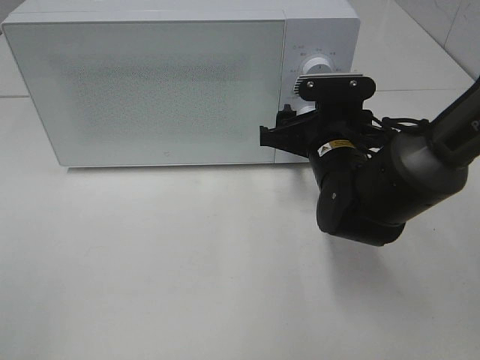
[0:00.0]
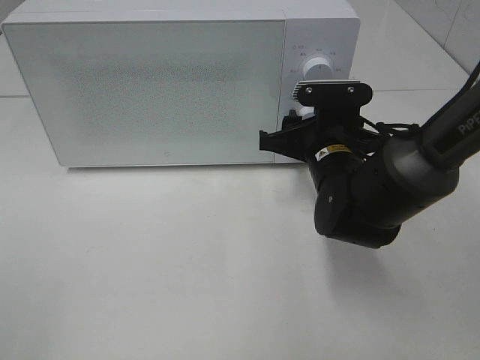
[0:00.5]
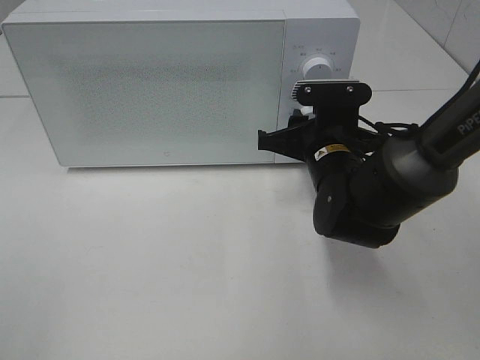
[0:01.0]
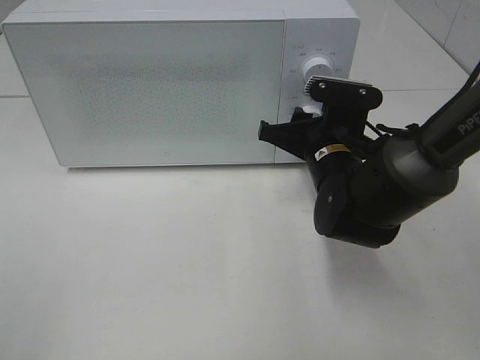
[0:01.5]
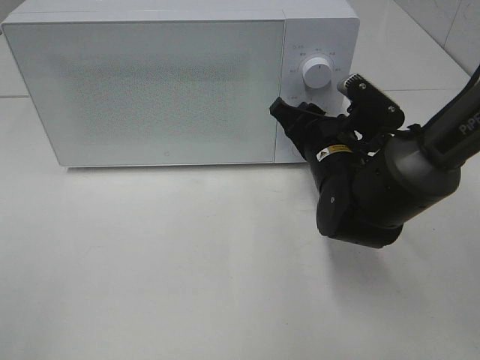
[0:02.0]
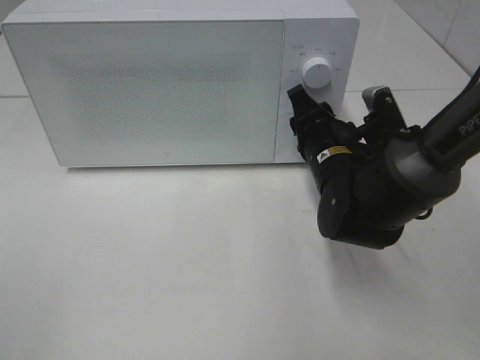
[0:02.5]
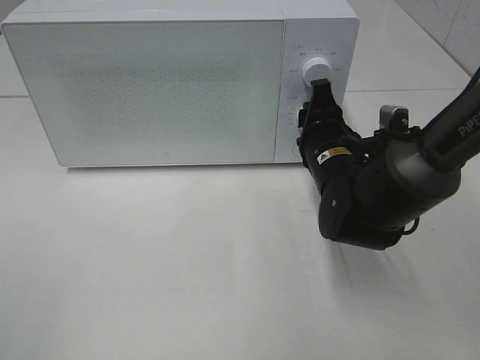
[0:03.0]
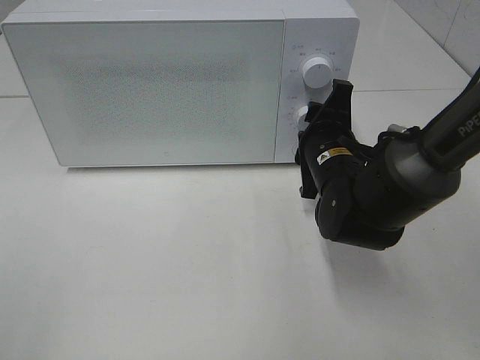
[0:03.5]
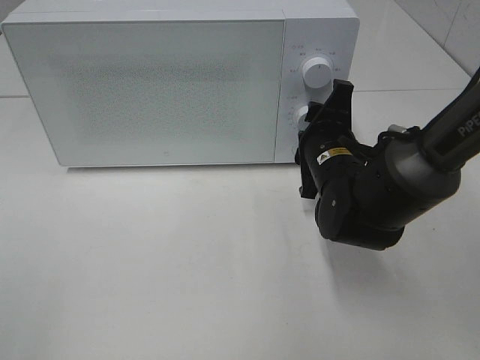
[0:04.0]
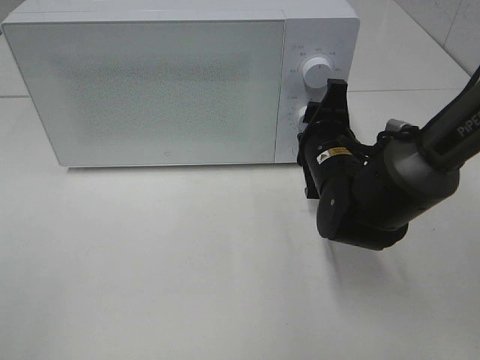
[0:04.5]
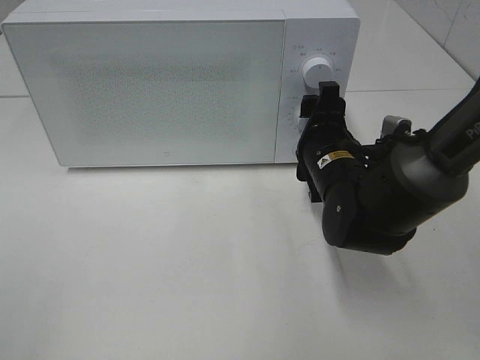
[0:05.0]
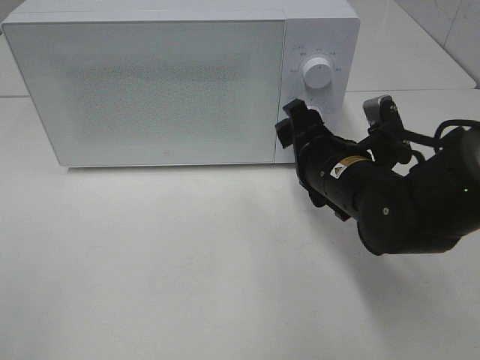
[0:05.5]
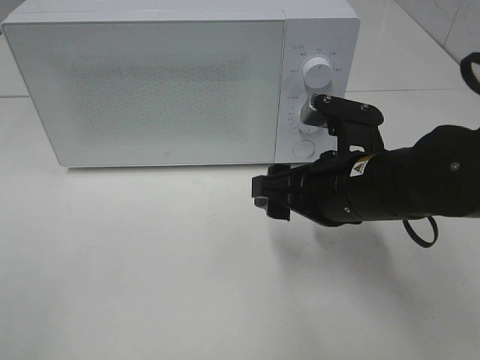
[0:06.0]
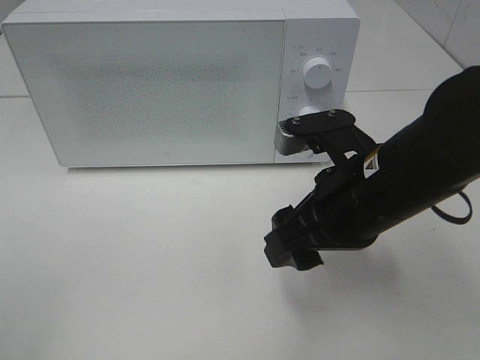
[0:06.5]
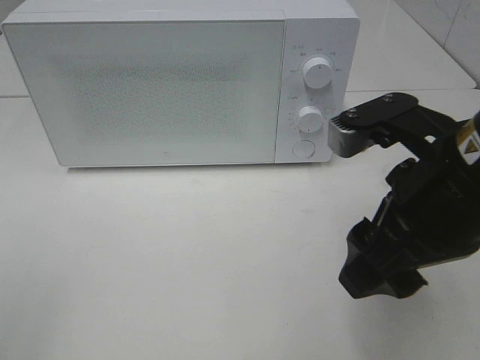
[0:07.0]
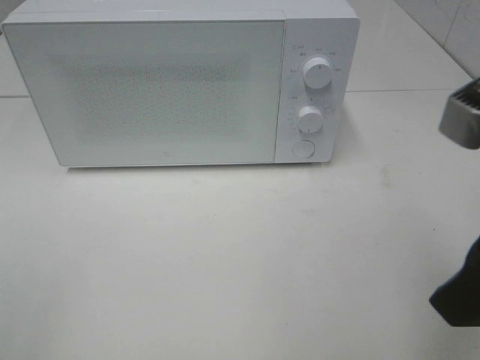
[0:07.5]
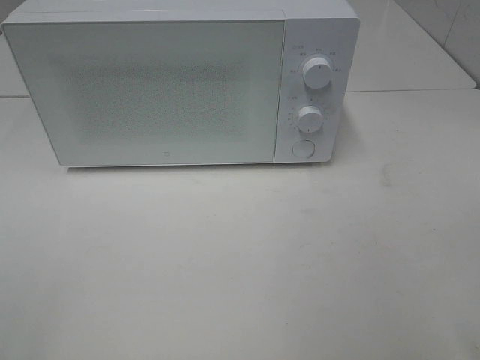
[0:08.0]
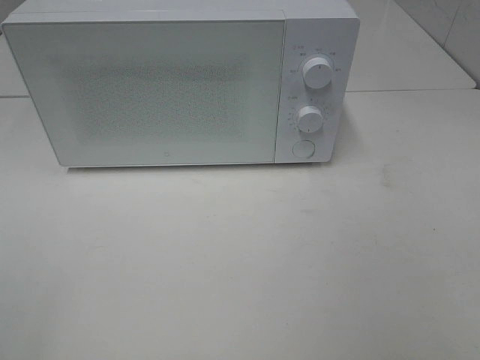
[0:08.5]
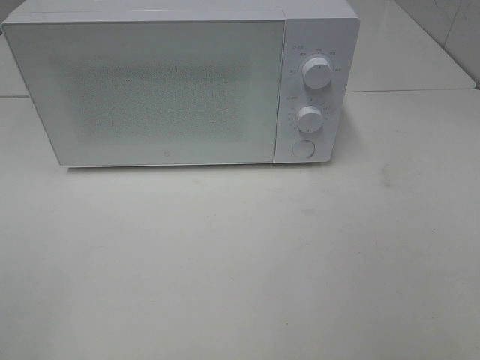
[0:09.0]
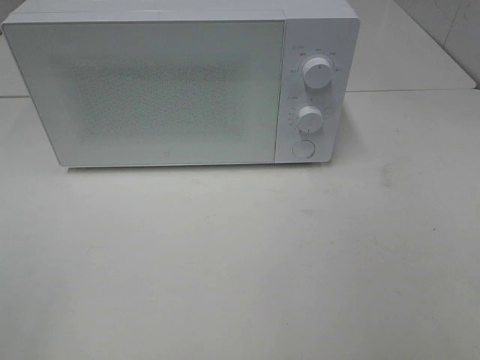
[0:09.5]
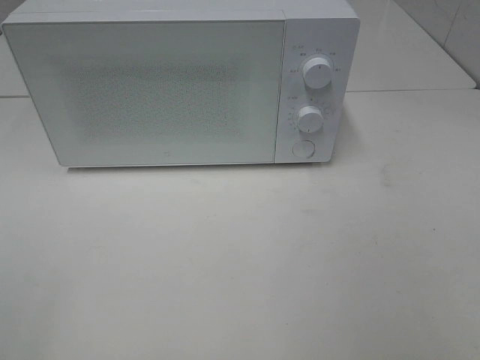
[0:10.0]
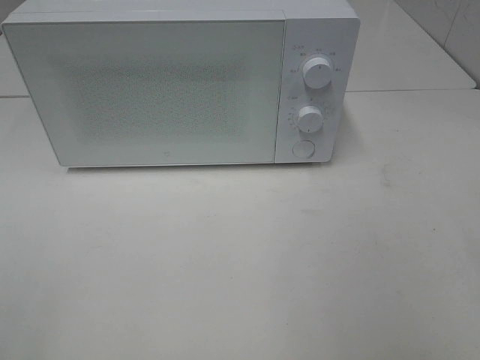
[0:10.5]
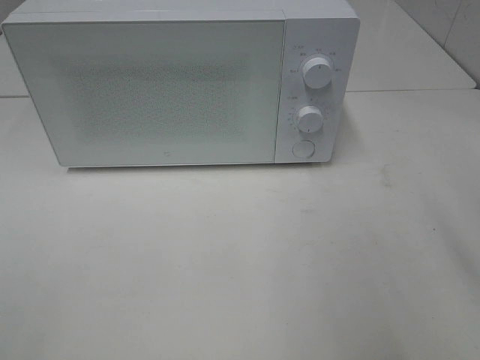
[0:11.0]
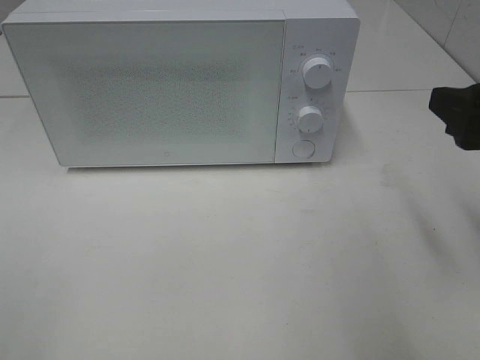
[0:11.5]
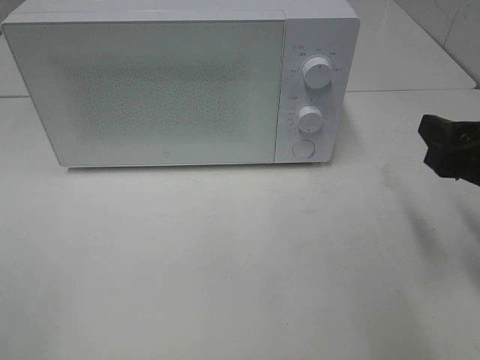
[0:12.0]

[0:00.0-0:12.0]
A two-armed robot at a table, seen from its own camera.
Task of the whole recording: Heat the burger.
Step, 0:00.0 to 0:04.5: Right hand: twist timer button.
0:04.0 to 0:06.0: The right gripper goes about 10 cm backward.
0:06.0 to 0:08.0: The right gripper travels backward, upward and to the right by about 25 cm.
0:10.0 to 0:12.0: The right gripper heads forward and downward, covering roughly 20 cm.

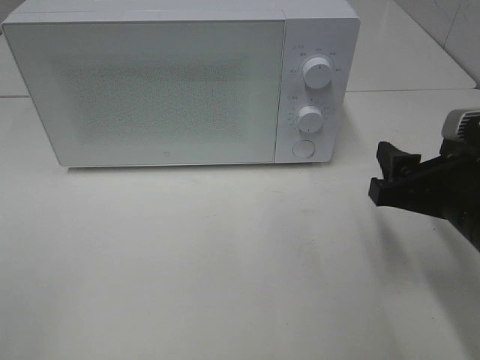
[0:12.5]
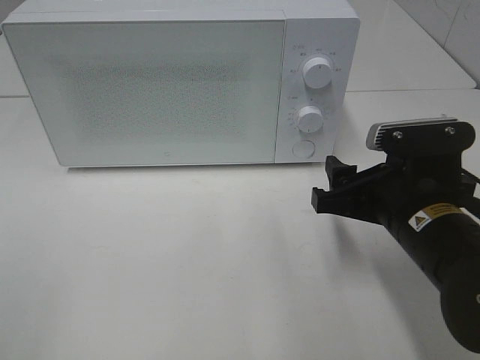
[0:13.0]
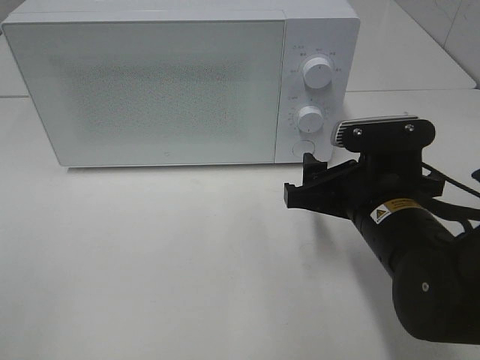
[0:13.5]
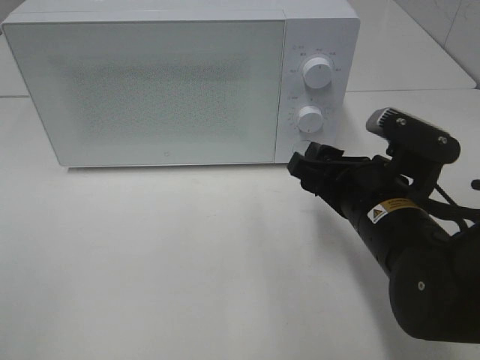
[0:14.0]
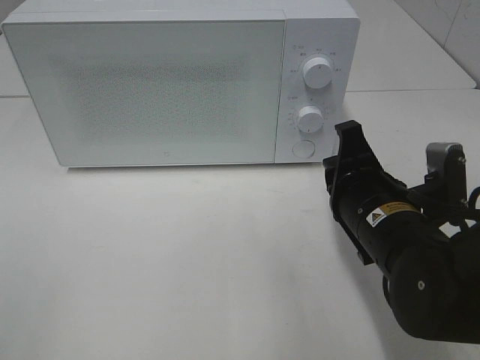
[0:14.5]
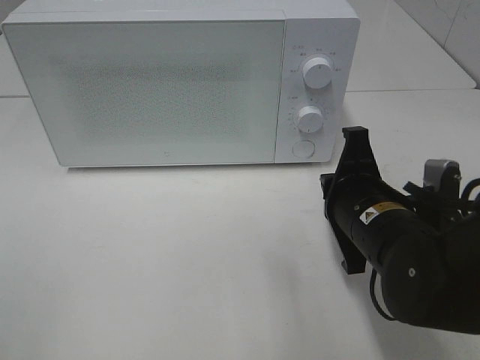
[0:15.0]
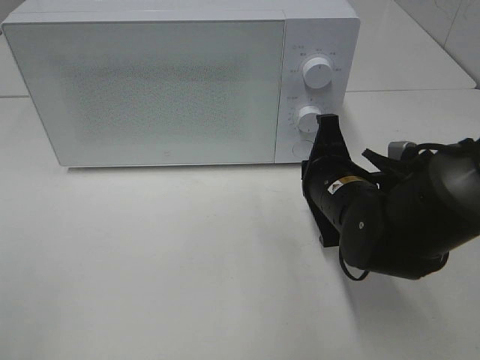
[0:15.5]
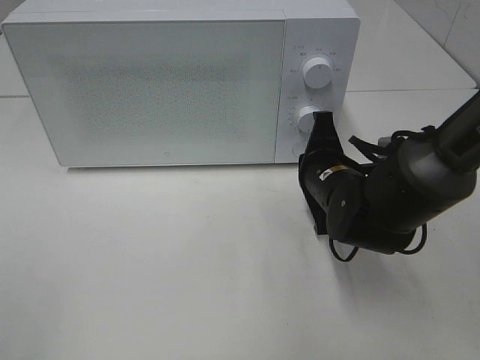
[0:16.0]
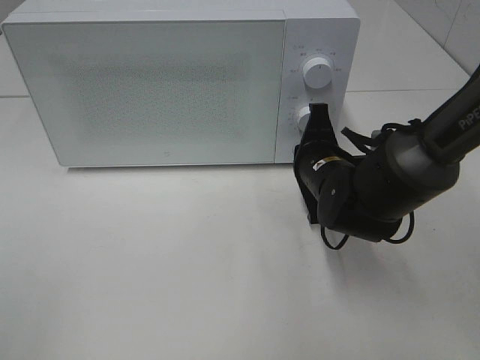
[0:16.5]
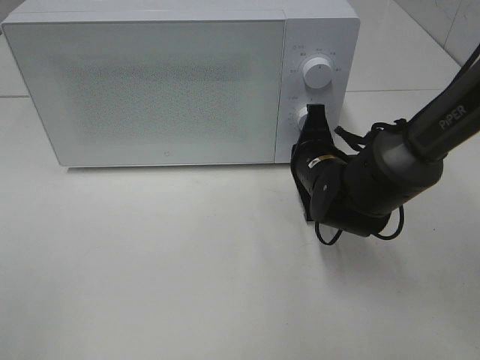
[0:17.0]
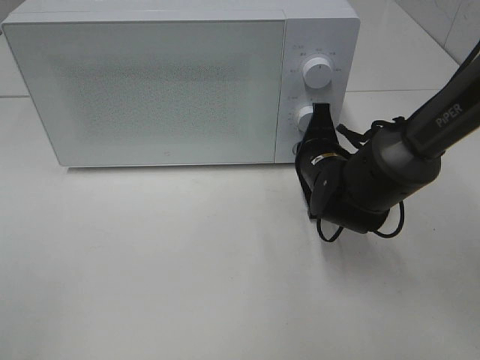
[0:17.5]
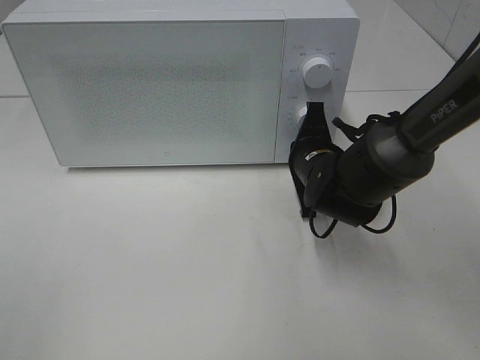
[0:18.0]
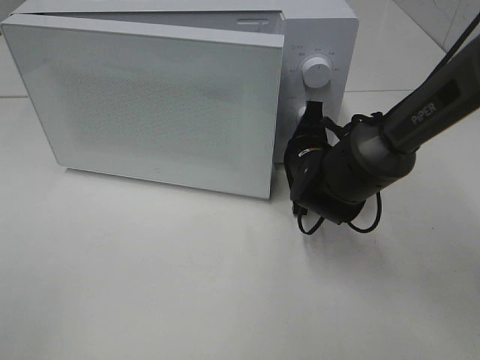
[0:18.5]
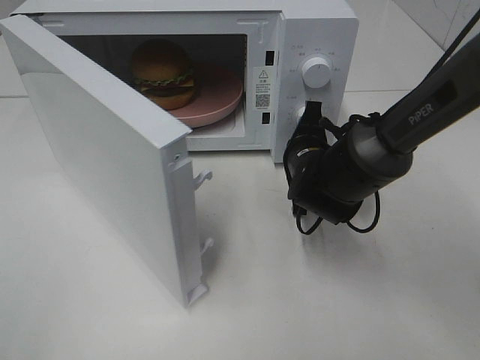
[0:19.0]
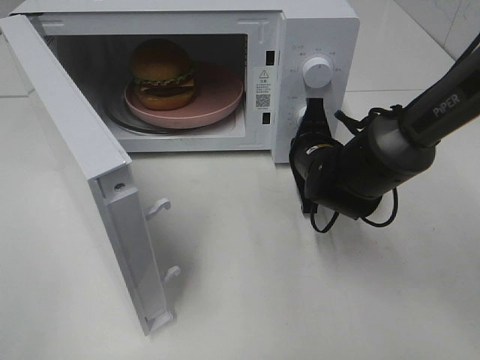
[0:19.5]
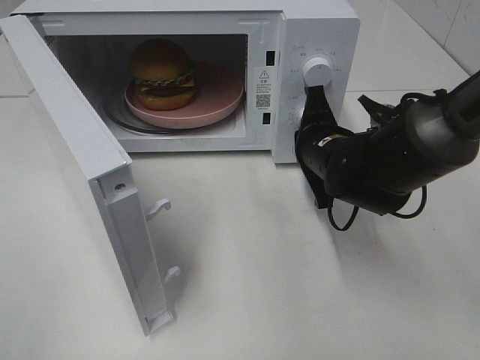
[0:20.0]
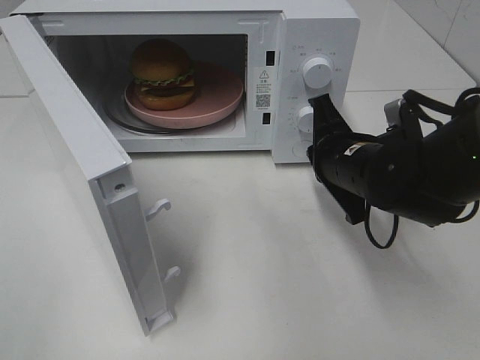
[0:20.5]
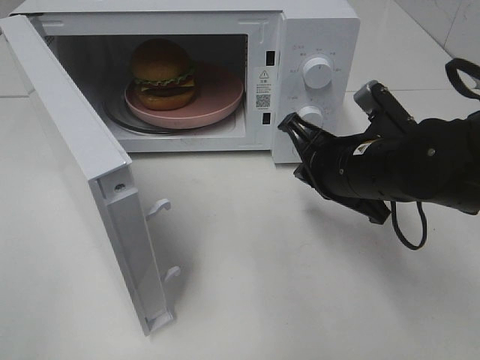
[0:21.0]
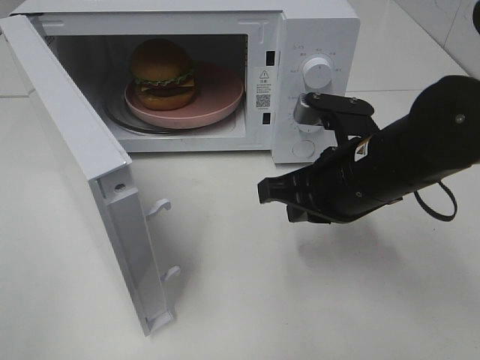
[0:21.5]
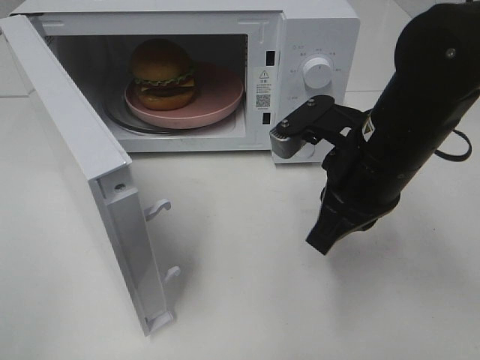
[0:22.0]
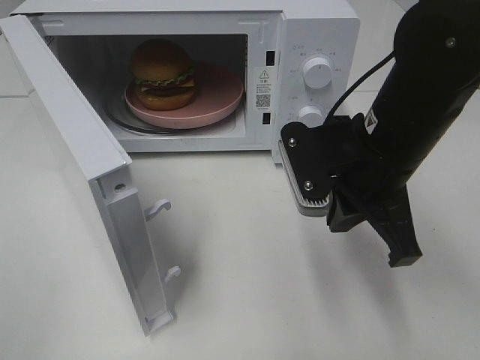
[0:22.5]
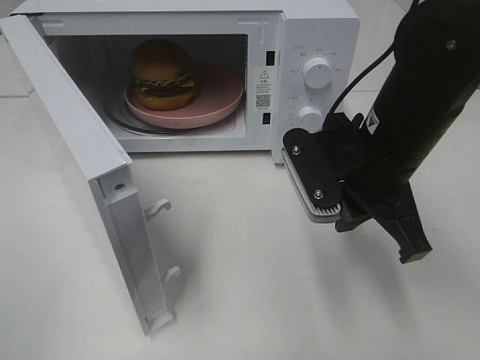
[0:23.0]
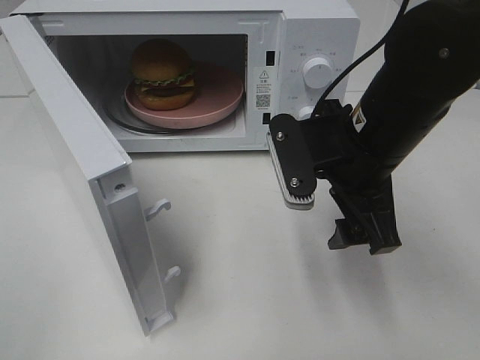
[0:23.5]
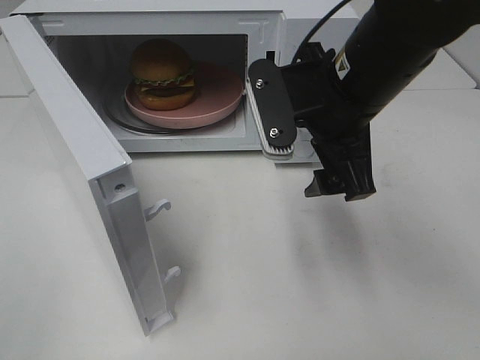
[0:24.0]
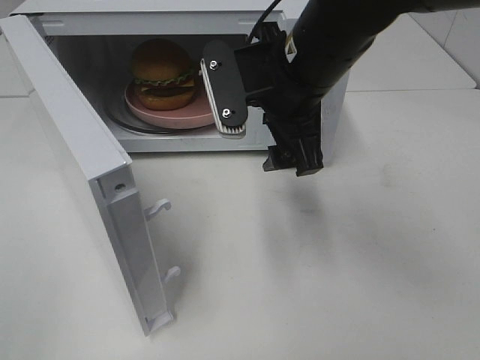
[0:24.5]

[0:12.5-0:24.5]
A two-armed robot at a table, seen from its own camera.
Task of the whole recording: Heat the burger.
Step, 0:12.5 to 0:20.0: Right hand: press the switch.
0:12.5 to 0:14.5: The right gripper is displaced to the left by some 10 cm, and closes up.
0:14.5 to 0:16.5: The right gripper shifts some 10 cm forward.
0:16.5 to 0:18.5: The grippers stay close to where they were, moving slightly.
0:18.5 to 0:20.5: The right gripper travels backward and upward by about 10 cm.
0:20.5 to 0:22.5: The right gripper travels upward by some 5 cm.
0:22.5 to 0:24.5: The right gripper is displaced to the left by about 5 cm, and opens.

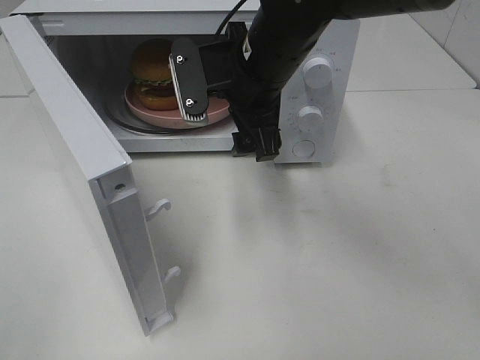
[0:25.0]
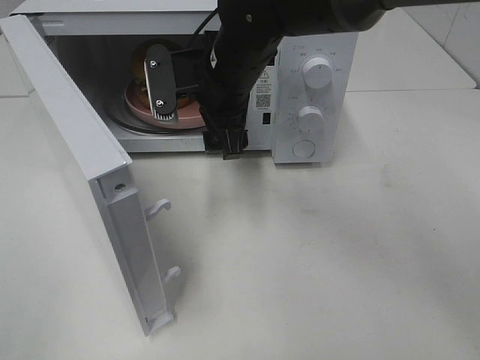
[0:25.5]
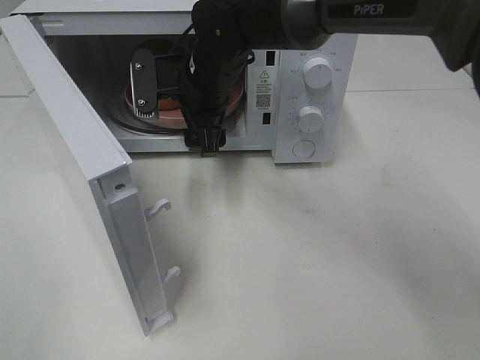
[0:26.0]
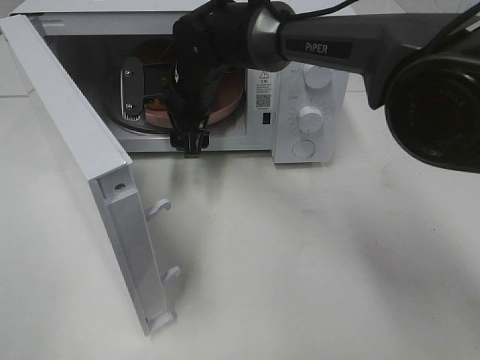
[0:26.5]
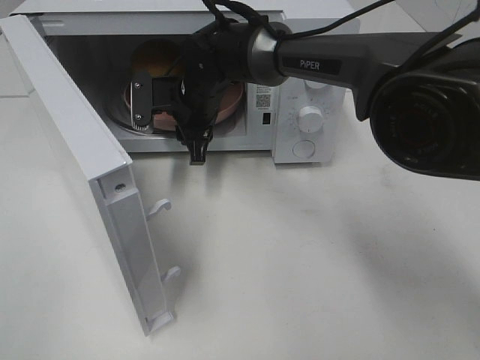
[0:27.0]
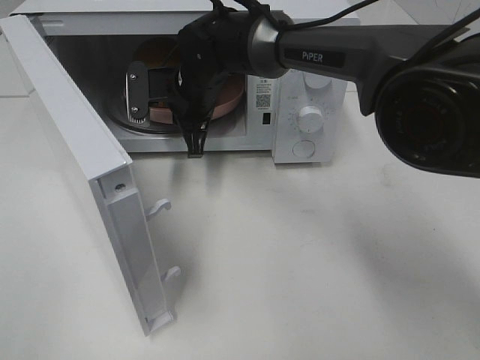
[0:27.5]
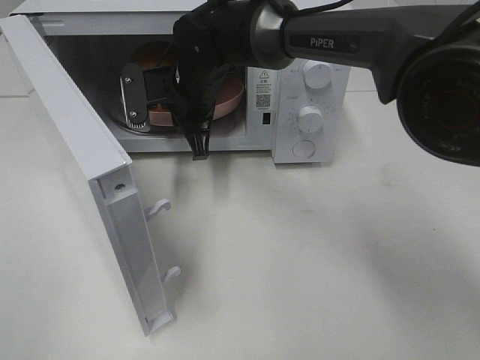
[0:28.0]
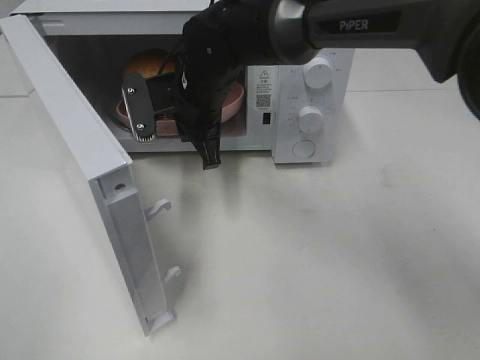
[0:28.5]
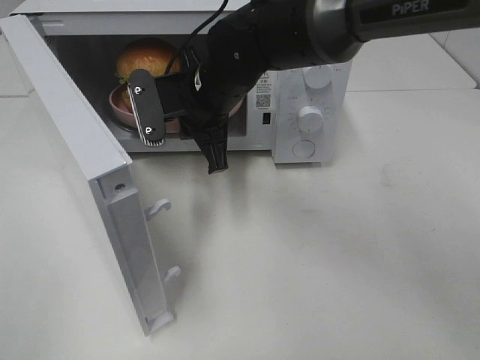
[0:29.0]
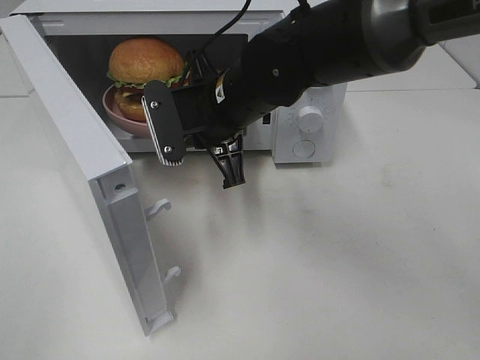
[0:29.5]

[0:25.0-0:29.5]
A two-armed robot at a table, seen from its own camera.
Task of the whole recording: Heat the burger.
Step, 0:25.0 to 0:27.5: Right hand: grab the plate with the hamburger.
0:25.0 to 0:27.0: The right gripper shifts approximately 15 cm forward, downward and to the left, and closes up.
0:27.0 to 0:29.5: The right gripper is displaced backward and upward by some 10 cm.
